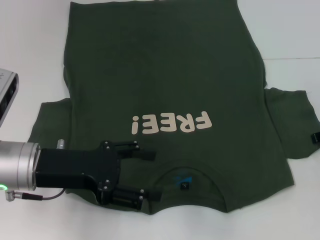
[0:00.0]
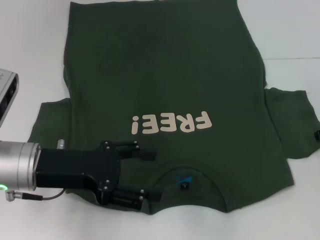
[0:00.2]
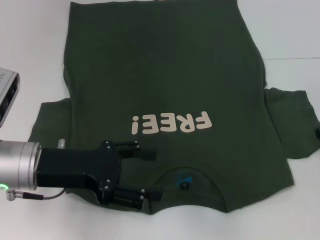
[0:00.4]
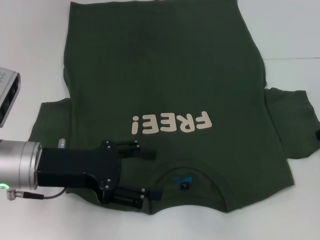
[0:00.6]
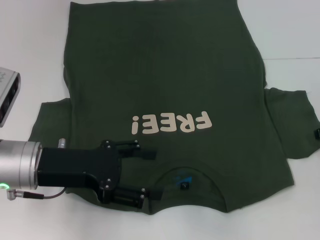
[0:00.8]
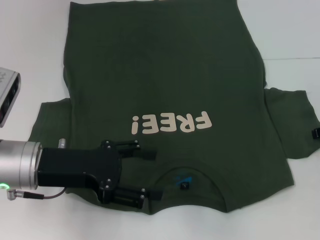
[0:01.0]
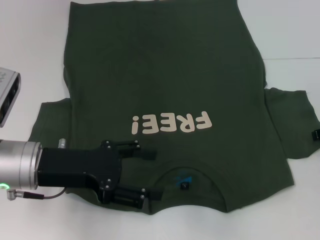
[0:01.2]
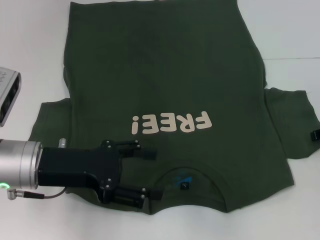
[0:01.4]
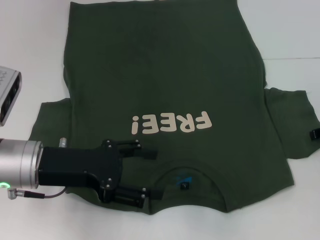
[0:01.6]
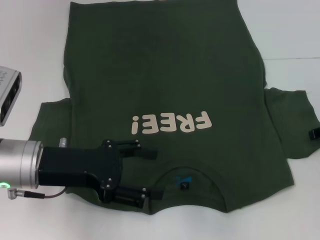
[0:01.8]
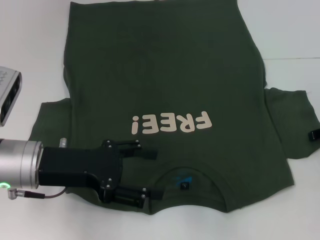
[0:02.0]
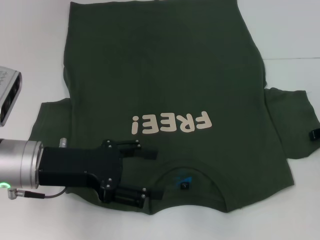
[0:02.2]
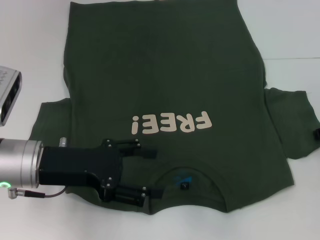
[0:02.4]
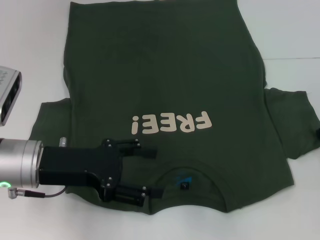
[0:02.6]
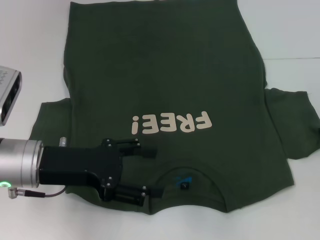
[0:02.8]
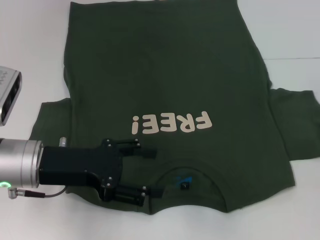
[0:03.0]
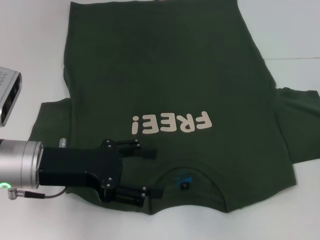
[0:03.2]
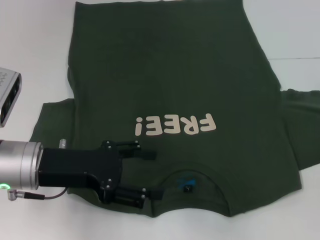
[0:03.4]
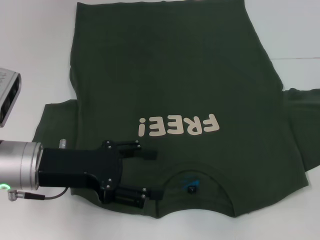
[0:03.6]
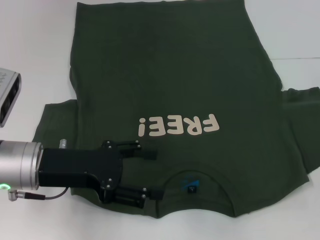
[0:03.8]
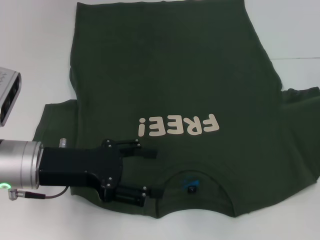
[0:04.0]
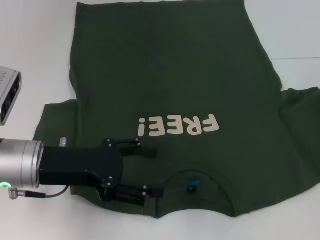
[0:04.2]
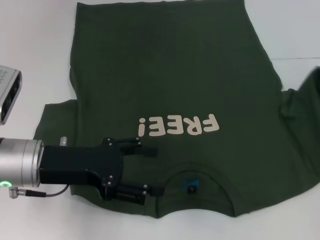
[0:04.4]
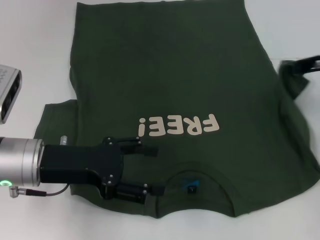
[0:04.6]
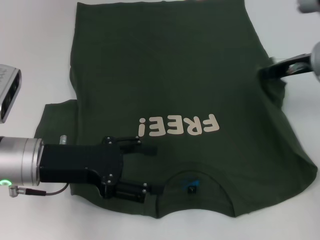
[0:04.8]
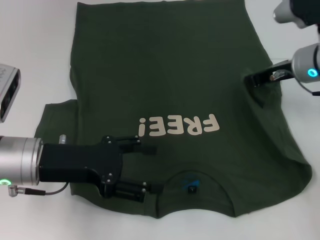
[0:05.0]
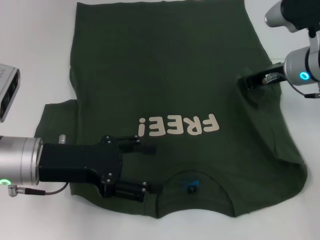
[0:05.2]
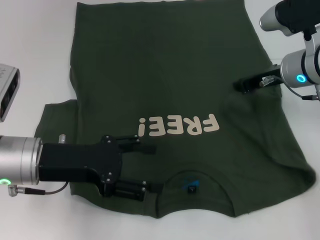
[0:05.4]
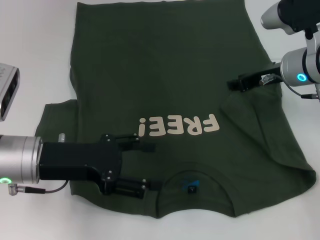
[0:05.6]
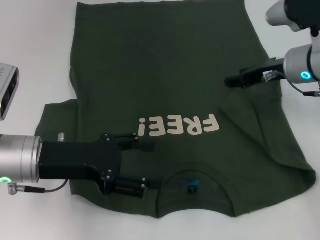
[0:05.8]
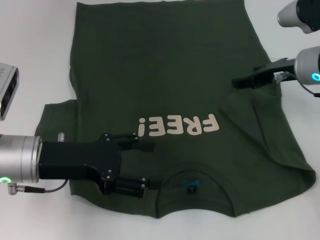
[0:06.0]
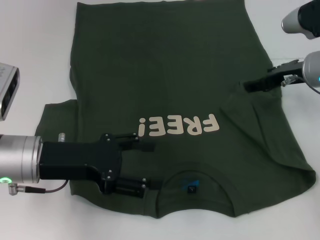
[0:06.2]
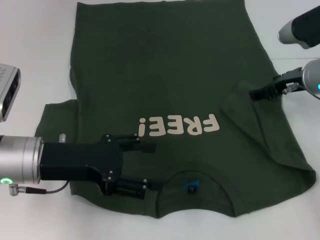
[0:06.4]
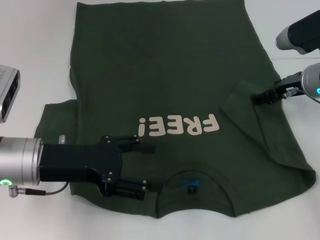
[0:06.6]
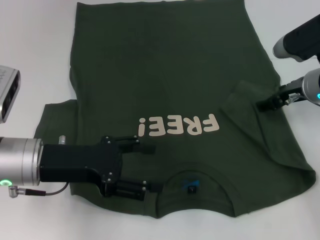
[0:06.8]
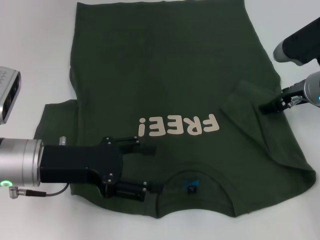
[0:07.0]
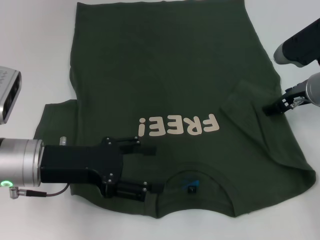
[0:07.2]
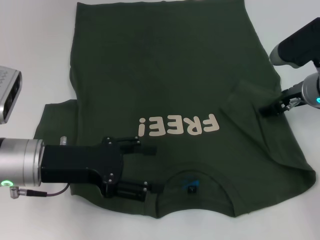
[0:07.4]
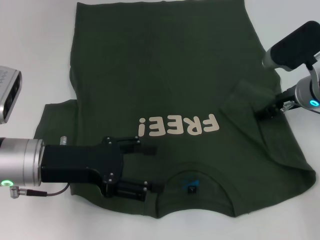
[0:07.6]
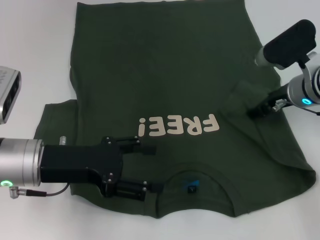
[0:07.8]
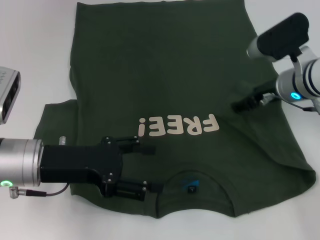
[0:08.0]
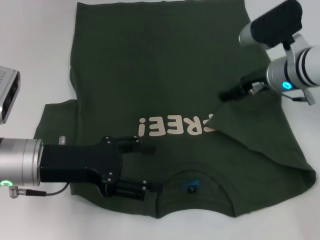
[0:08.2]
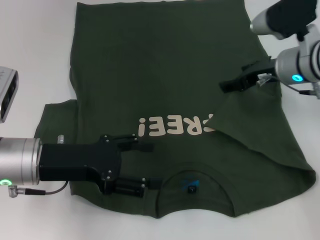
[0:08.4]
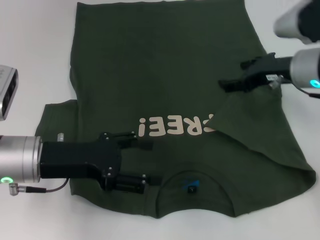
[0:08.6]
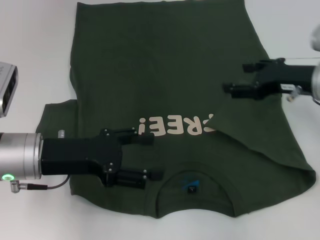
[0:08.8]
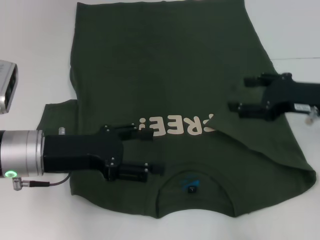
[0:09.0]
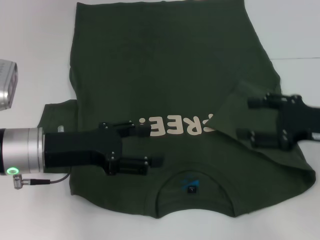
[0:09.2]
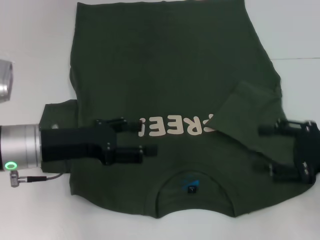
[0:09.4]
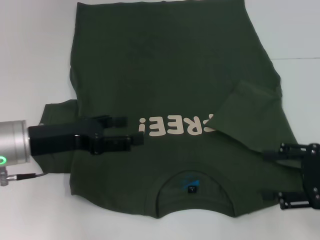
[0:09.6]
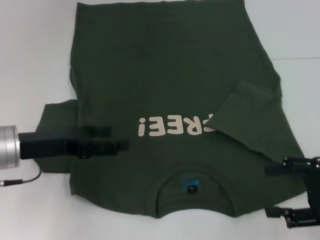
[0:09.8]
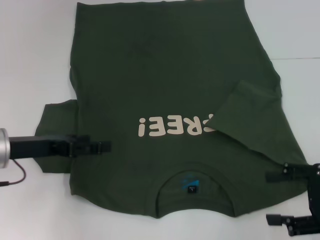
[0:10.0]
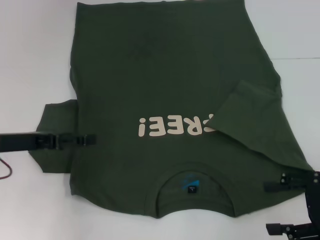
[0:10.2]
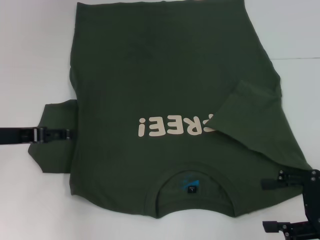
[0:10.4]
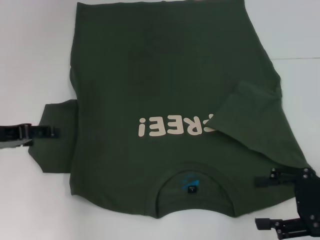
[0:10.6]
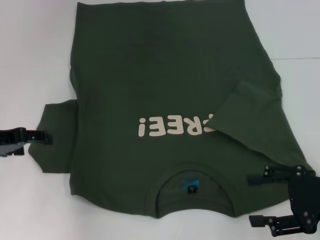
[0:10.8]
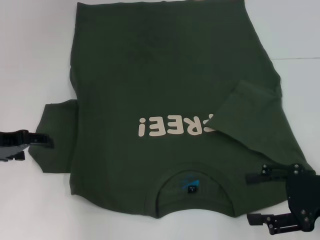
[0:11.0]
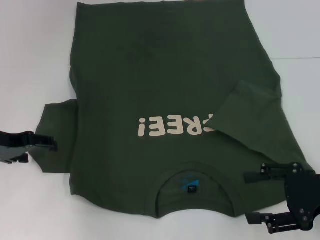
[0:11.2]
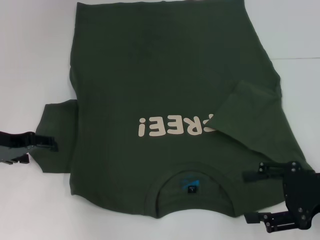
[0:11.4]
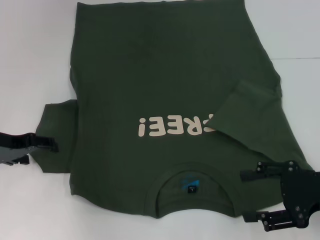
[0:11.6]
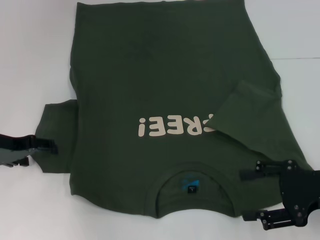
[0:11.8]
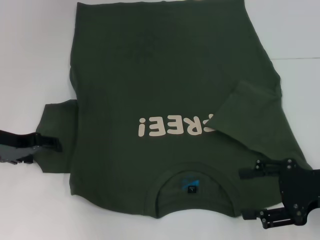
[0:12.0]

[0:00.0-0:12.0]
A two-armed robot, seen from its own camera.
Step, 0:00.0 to 0:08.0: Fold the bottom right sleeve with your right hand.
0:00.0 to 0:01.6: There are only small adjustments of the grippers.
0:01.6 to 0:03.0: The right gripper closes.
0:03.0 to 0:04.4: The right gripper is displaced upward by approximately 5 cm.
0:04.4 to 0:06.0: The right gripper travels to the left by some 10 cm, and opens its fingers.
0:06.0 to 0:07.6: The right gripper opens its fingers.
0:07.6 to 0:09.0: The right gripper moves backward, some 10 cm.
0:09.0 to 0:10.4: The right gripper heads backward, covering roughly 10 cm. The left gripper heads to the left, covering roughly 10 cm.

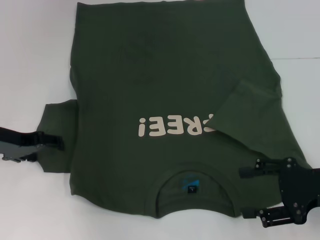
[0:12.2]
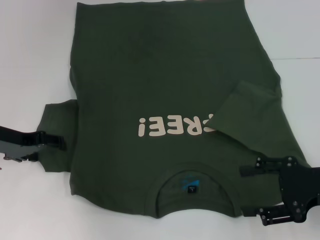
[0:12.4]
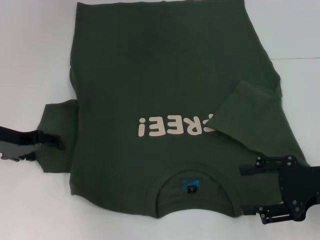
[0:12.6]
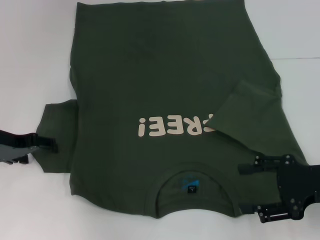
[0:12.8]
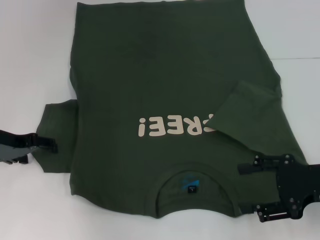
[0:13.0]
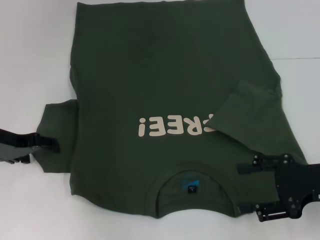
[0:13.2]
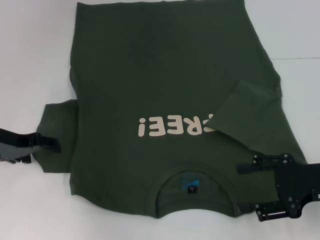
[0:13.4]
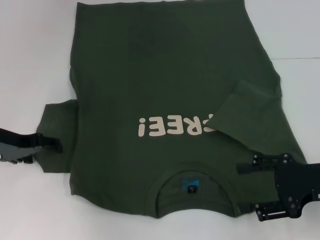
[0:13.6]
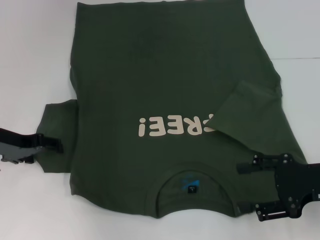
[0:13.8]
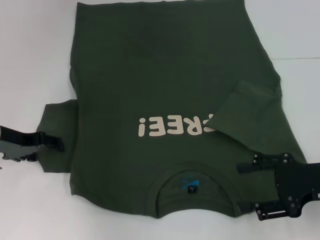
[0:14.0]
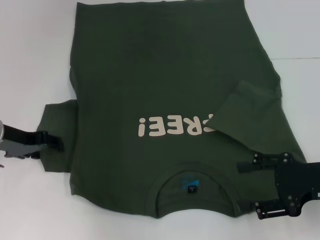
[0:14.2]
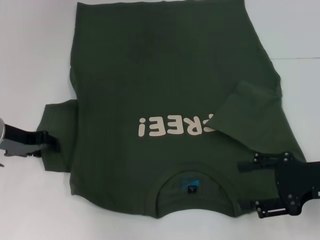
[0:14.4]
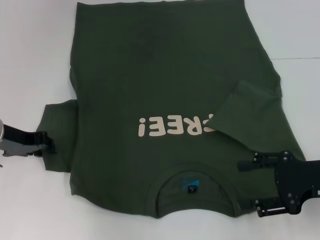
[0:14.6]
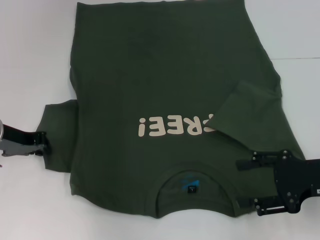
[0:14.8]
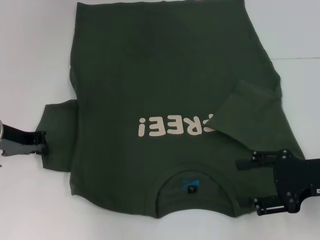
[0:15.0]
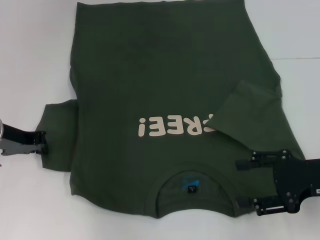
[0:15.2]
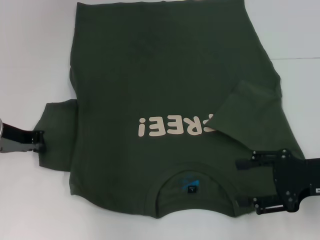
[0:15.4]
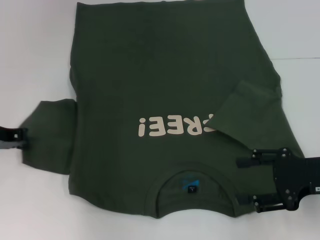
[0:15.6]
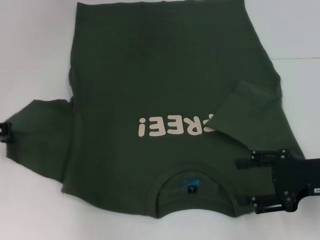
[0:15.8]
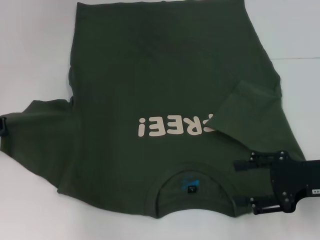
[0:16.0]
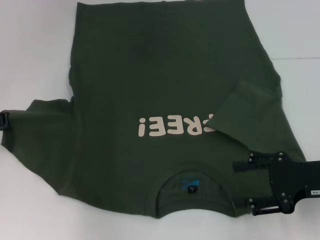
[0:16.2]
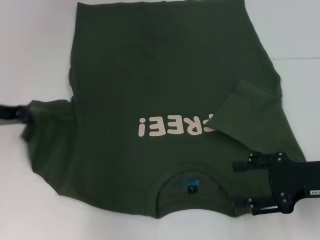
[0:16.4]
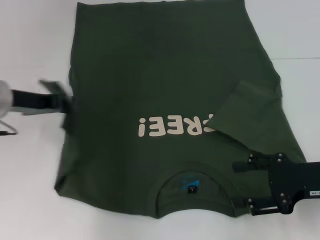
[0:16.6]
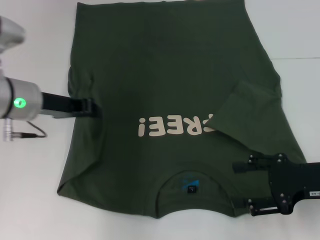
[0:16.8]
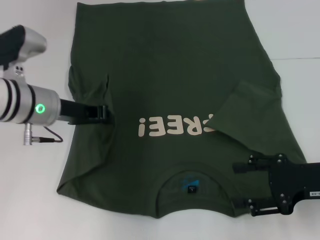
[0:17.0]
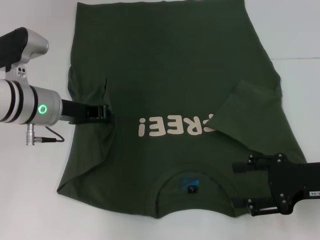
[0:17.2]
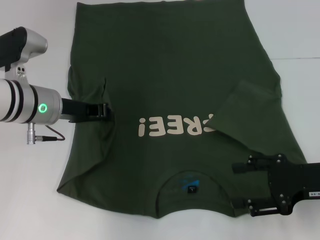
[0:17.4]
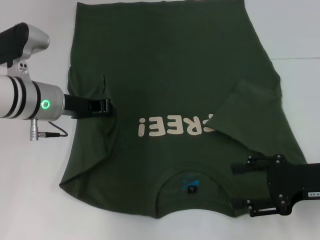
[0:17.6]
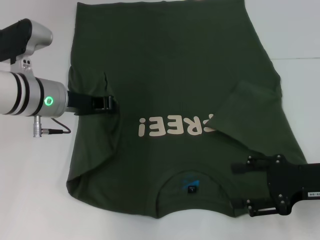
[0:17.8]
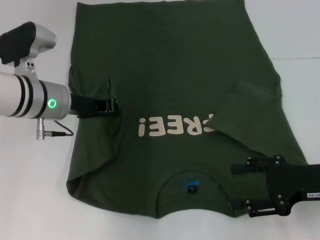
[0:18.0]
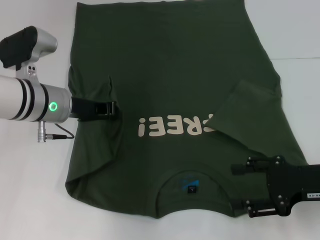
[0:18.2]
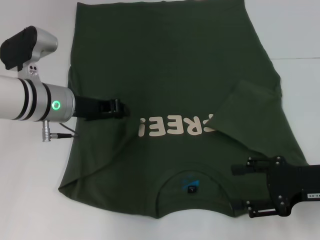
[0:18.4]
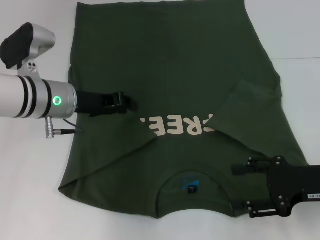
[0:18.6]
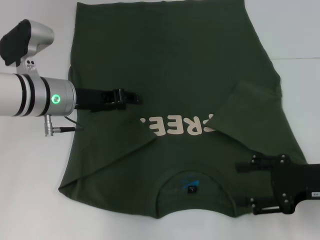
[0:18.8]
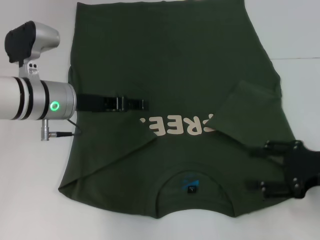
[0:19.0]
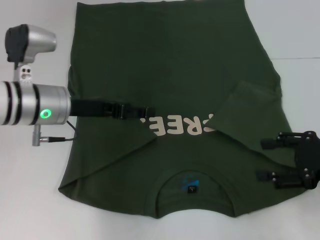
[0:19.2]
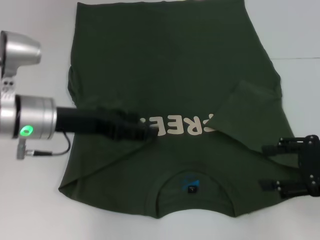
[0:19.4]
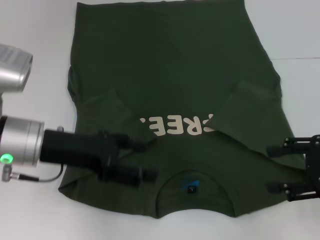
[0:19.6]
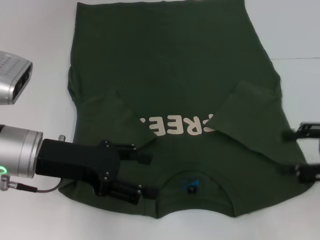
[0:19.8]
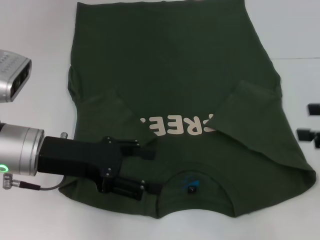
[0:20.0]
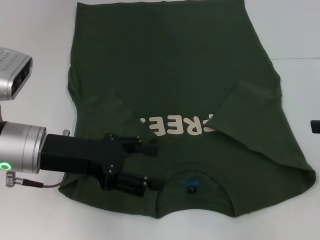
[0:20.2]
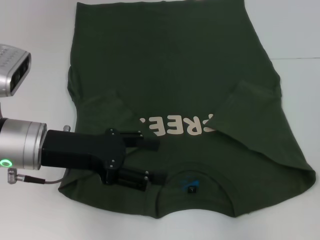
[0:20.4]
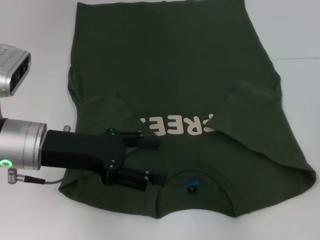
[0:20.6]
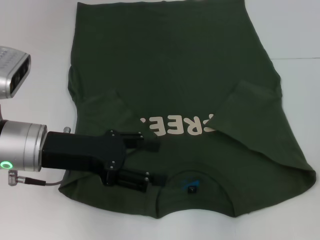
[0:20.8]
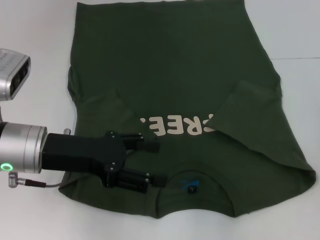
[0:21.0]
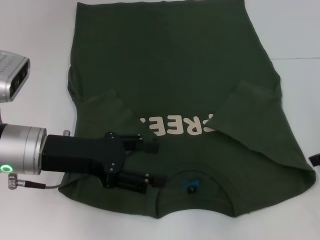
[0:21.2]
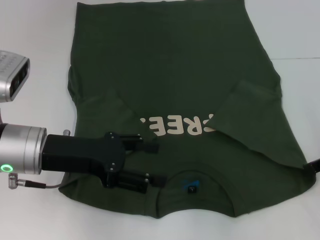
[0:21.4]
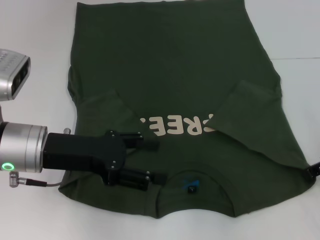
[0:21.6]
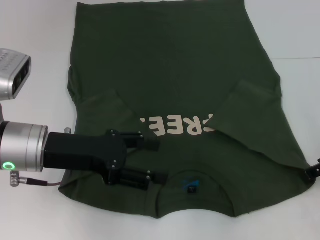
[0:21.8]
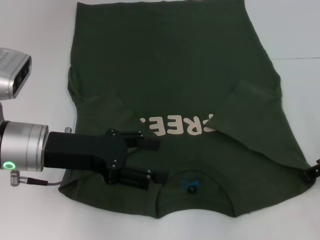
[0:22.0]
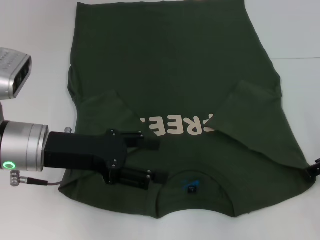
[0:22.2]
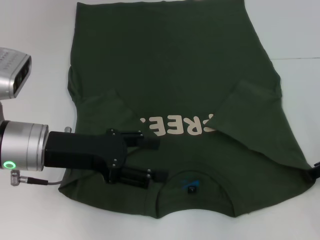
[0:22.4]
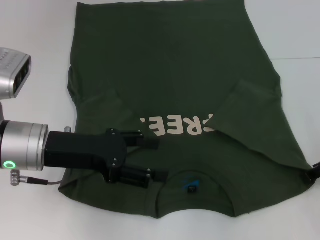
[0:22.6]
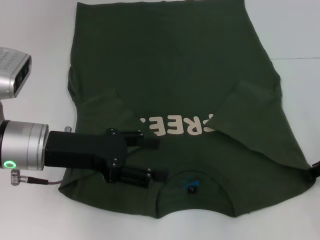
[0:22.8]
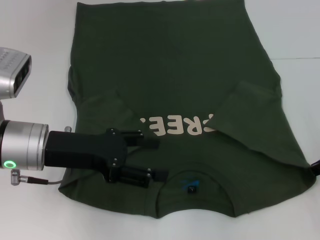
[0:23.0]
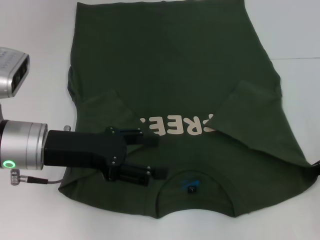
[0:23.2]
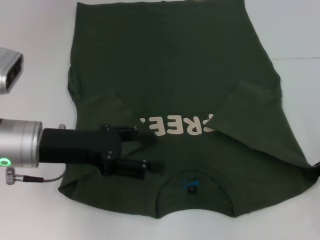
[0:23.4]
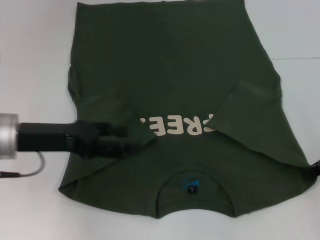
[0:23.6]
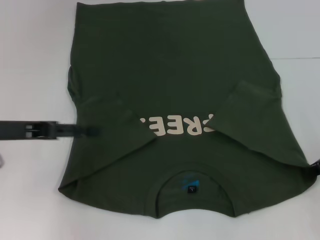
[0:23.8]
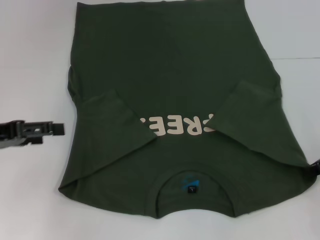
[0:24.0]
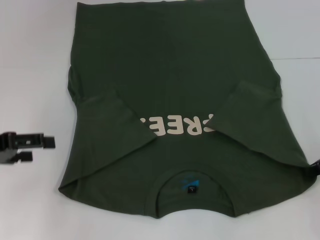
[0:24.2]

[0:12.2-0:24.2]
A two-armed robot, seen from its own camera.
Step, 0:12.2 to 0:18.4: Fold the bottom left sleeve with your left hand.
Step, 0:18.6 to 0:23.6: Grab the bottom right corner with your right hand.
0:12.2 to 0:13.8: Both grippers stay about where they are.
0:13.8 to 0:15.2: The left gripper closes up.
0:15.2 to 0:16.6: The left gripper ends up about 5 cm from where it was.
0:16.6 to 0:18.2: The left gripper shifts roughly 5 cm to the right.
0:18.2 to 0:19.8: The right gripper heads upward, covering about 5 cm. Meanwhile the left gripper is displaced backward by about 10 cm, and opens its fingers.
0:19.8 to 0:21.2: The right gripper travels forward by approximately 5 cm.
0:21.2 to 0:22.6: The grippers make only small movements.
0:22.6 to 0:24.2: The left gripper travels to the left by roughly 15 cm. The right gripper closes up.
